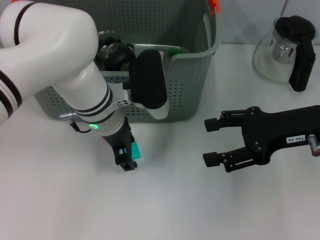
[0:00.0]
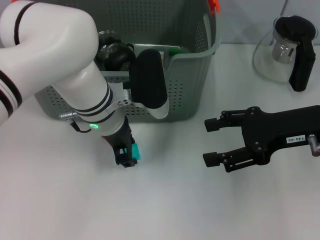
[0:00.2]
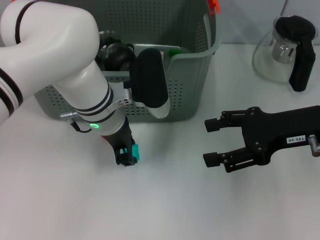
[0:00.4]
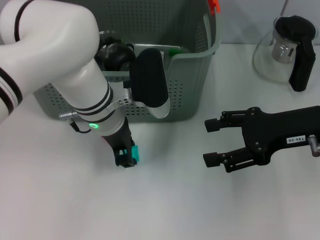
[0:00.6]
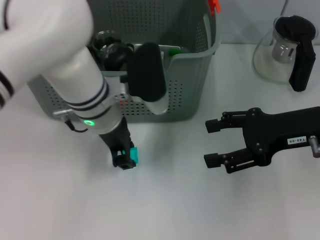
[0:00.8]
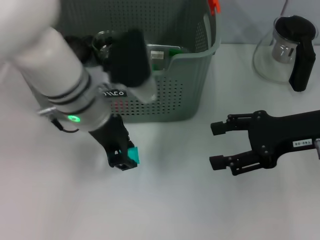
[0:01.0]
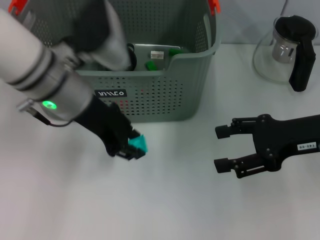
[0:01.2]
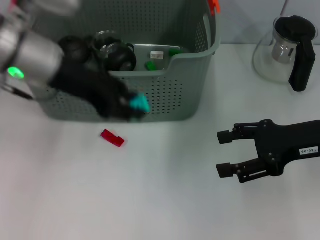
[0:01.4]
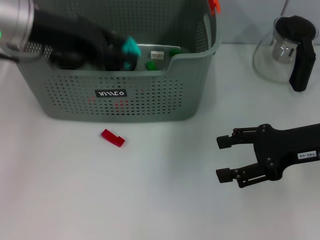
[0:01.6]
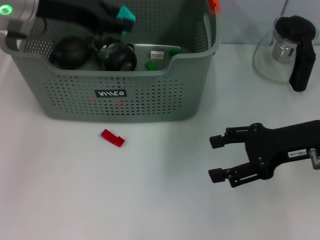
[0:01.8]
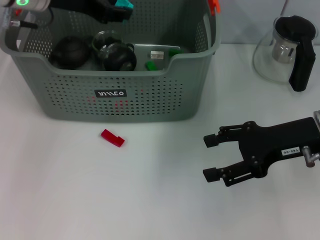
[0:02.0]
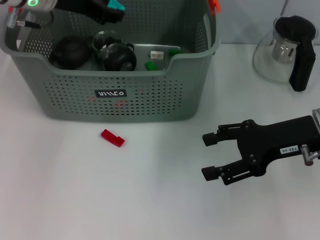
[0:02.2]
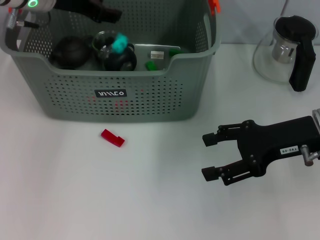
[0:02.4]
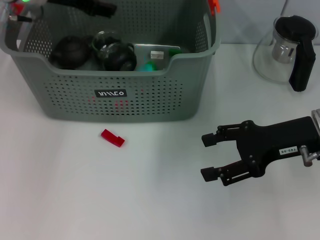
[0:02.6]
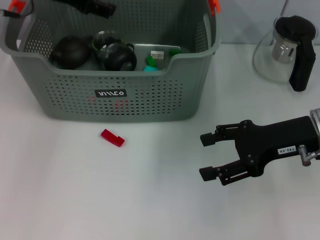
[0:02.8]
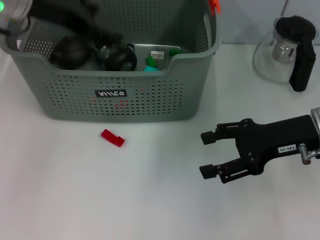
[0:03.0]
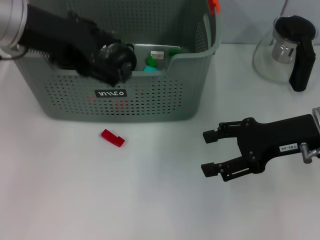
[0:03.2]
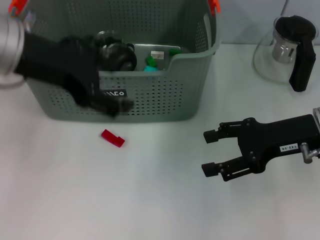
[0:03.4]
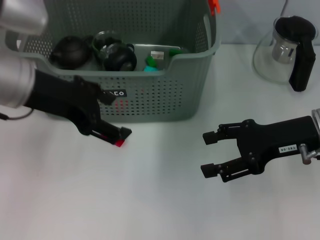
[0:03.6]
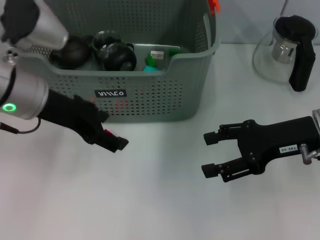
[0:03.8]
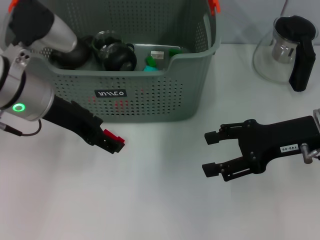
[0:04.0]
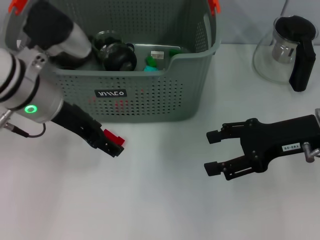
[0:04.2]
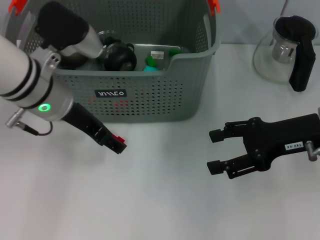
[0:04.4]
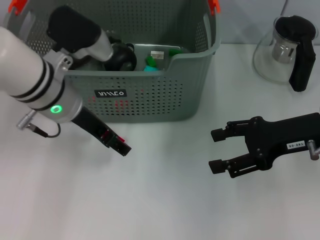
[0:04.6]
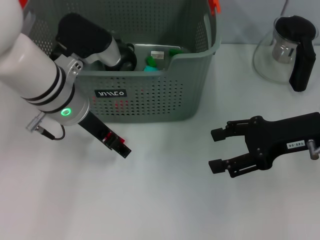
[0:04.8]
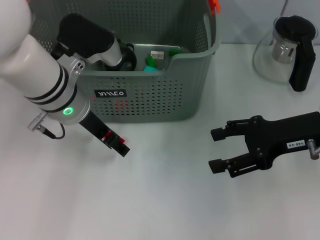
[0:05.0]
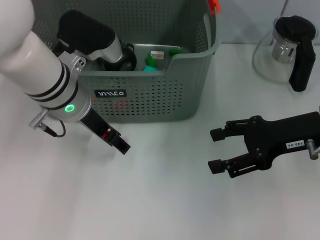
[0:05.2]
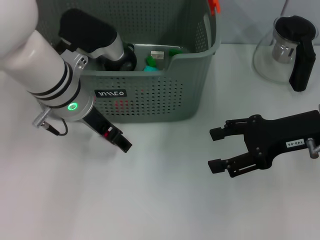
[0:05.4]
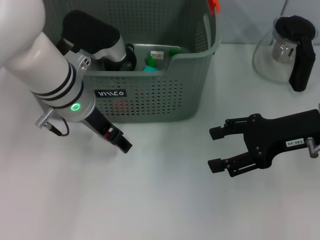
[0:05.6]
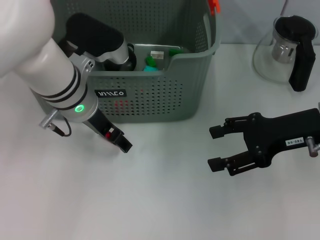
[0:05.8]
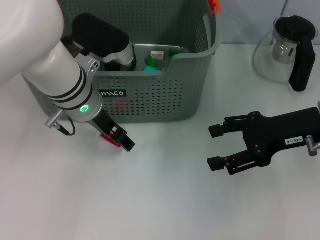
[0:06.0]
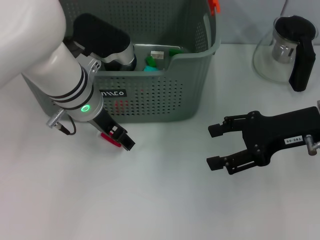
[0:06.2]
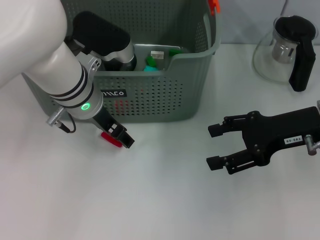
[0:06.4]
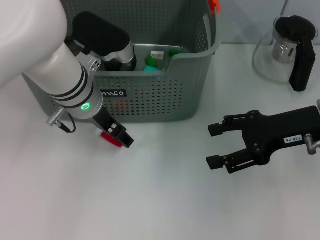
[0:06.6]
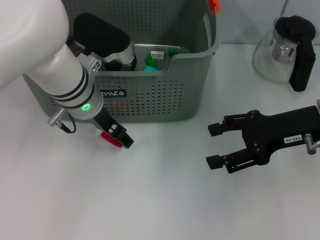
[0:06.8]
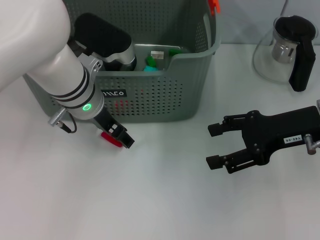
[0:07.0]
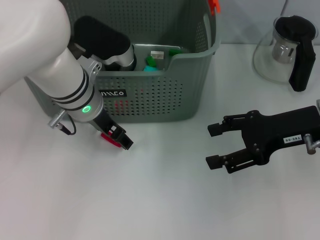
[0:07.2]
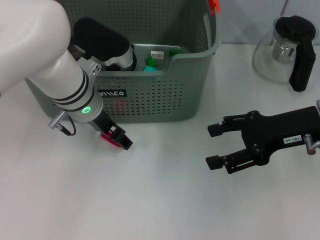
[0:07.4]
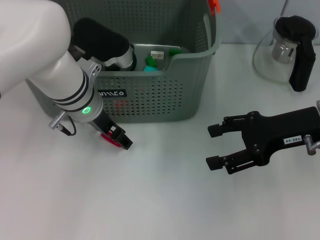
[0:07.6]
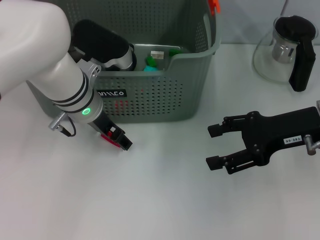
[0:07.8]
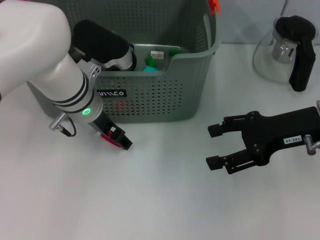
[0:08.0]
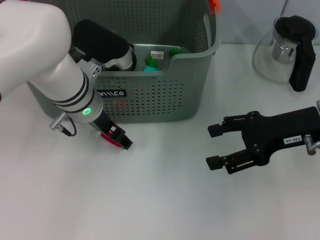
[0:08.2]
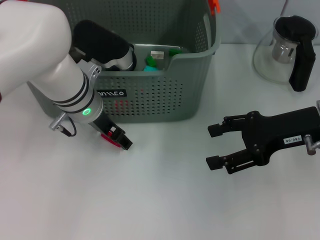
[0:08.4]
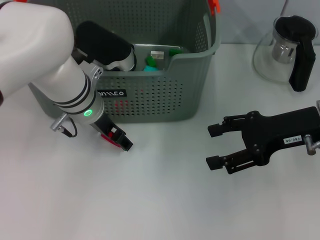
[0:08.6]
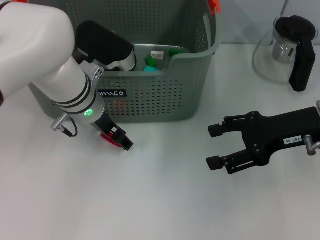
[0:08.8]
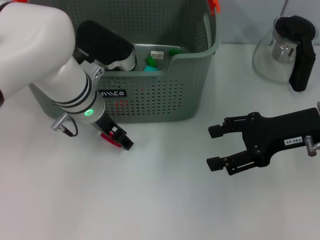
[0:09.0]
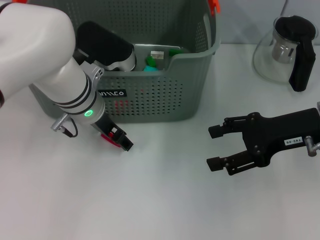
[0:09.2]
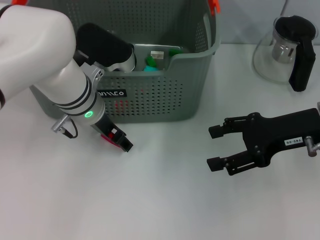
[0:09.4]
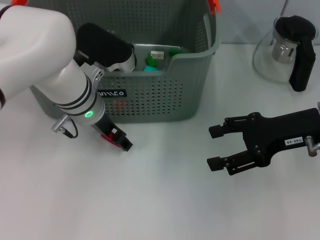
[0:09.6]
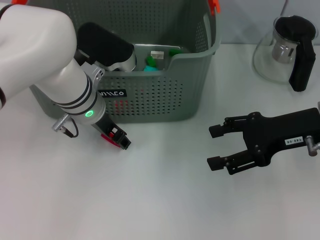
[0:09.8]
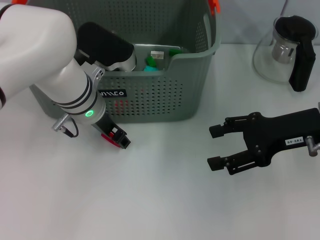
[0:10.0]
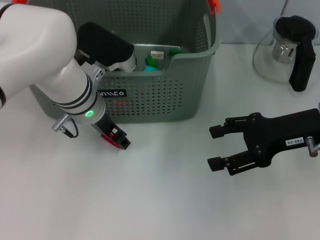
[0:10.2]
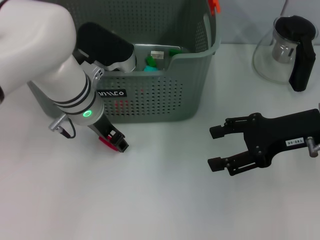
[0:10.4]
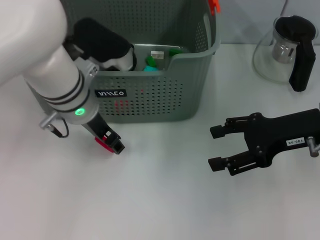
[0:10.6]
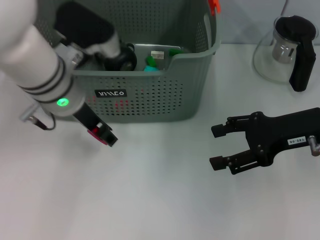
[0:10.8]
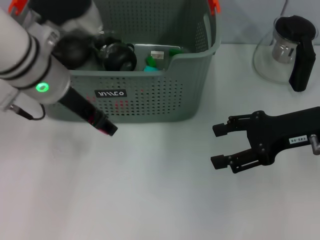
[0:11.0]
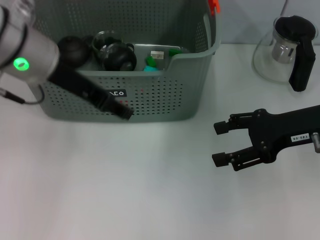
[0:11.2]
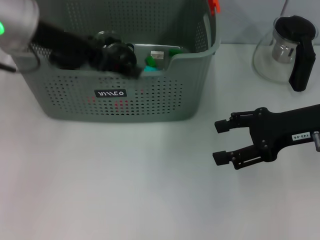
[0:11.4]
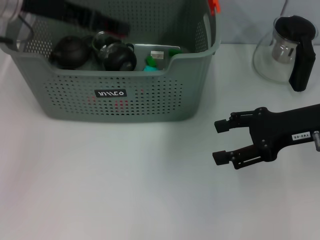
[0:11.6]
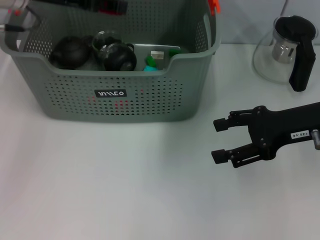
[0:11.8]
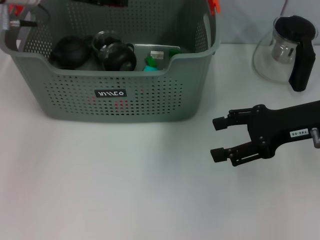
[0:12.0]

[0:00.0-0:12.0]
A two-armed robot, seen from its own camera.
Task of the whole recording: pick up the teacup on the table and place it into the storage bin, pick up the block on the table and place it into the storage bin.
Step, 0:00.6 to 0:02.4: Place the light blue block in the storage box with left gripper.
Step, 0:02.8 to 0:09.8: Grasp the red block with left gripper.
0:00.0 to 0:01.6: The left gripper travels upward and to the left by roughly 15 cm.
0:01.6 to 0:03.0: The left gripper moves about 10 cm forward and comes back, and opens.
0:03.0 to 0:04.4: The left gripper is displaced downward by approximately 10 cm.
0:04.4 to 0:06.0: The left gripper ends up some 5 cm from where it was.
0:06.0 to 0:07.6: The grippers stay close to where they were, moving slightly.
0:07.6 to 0:10.4: The two grippers keep their place.
0:10.4 to 0:12.0: The left gripper travels upward, to the left and forward by about 15 cm.

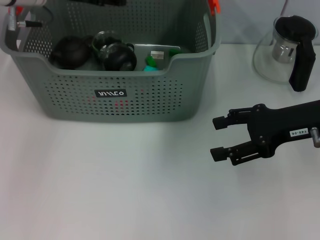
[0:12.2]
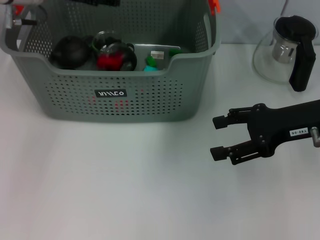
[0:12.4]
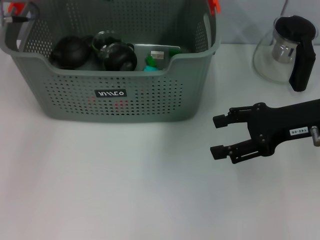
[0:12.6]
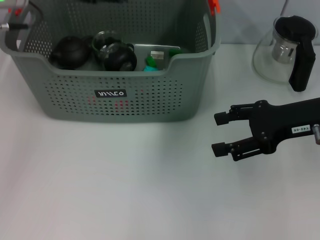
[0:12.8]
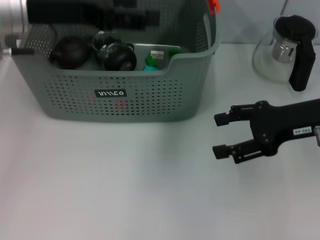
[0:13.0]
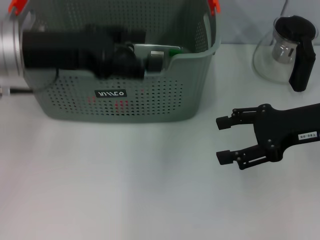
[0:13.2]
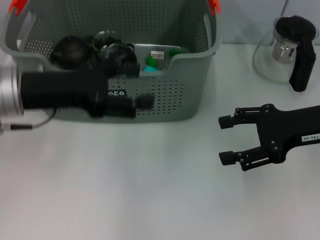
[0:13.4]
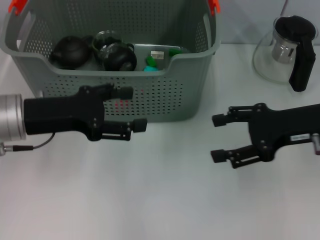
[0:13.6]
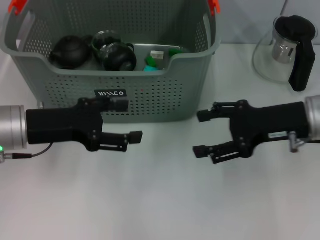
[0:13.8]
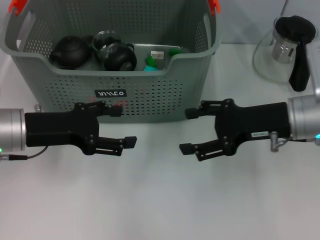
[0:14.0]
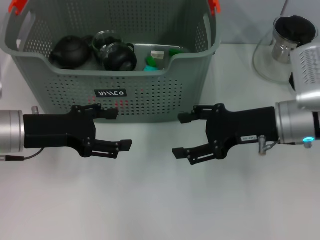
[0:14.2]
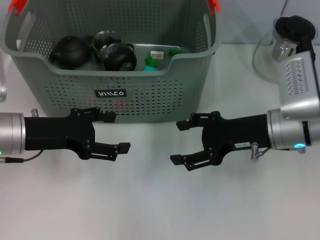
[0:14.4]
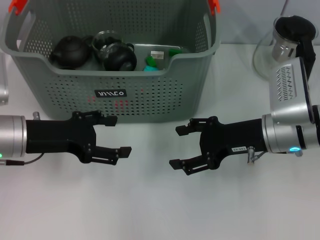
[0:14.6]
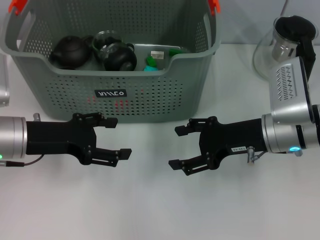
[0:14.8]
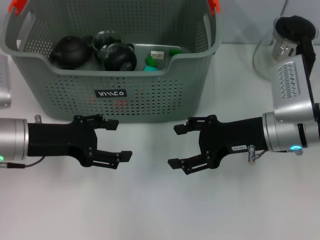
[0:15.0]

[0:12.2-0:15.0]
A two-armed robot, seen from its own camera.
Task of the whole recording: pick up the teacup on the table and place it into the storage bin, pick up the block on the table and place it into the storage bin.
0:12.2 to 0:13.6: The left gripper goes approximately 15 cm backward and downward.
0:13.6 to 0:15.0: The right gripper shifts roughly 5 cm to the left.
